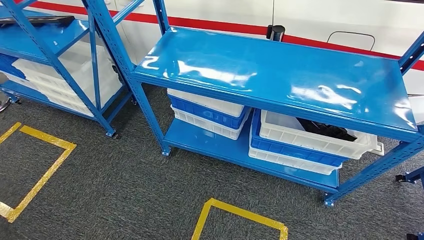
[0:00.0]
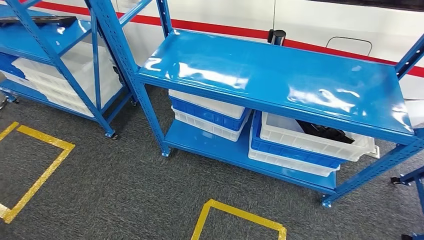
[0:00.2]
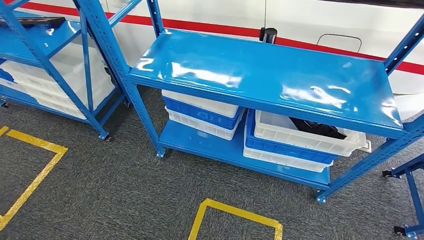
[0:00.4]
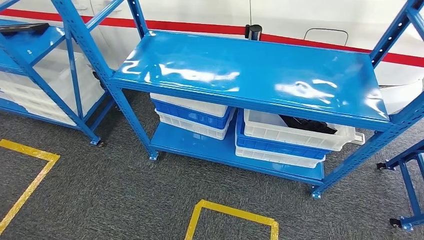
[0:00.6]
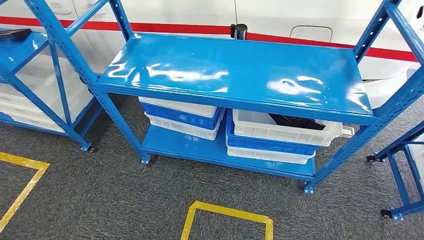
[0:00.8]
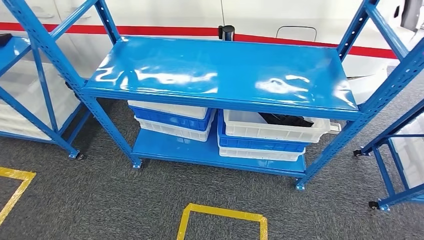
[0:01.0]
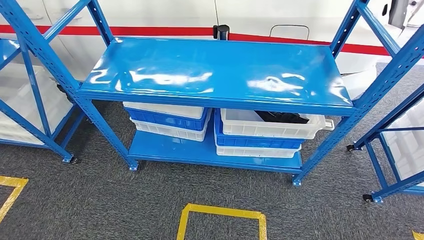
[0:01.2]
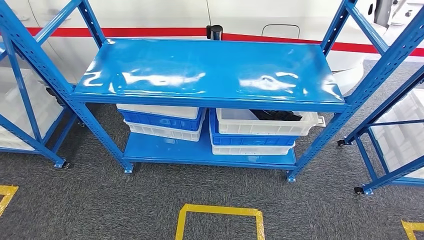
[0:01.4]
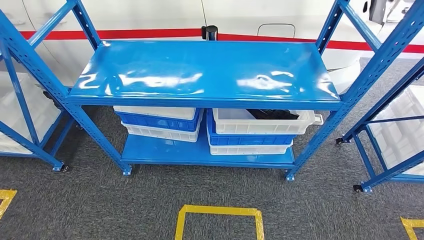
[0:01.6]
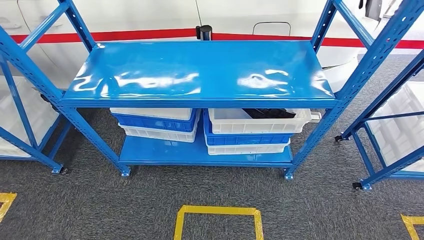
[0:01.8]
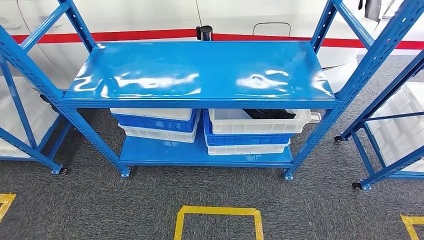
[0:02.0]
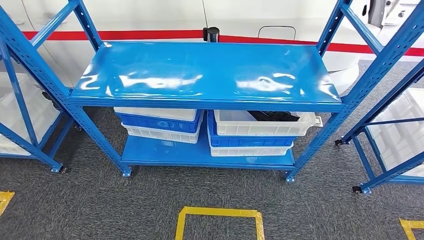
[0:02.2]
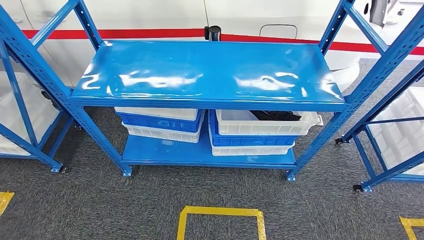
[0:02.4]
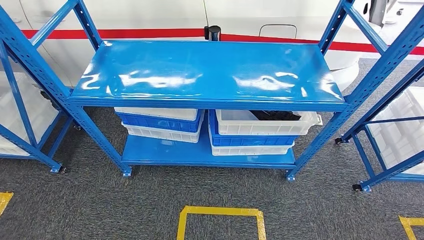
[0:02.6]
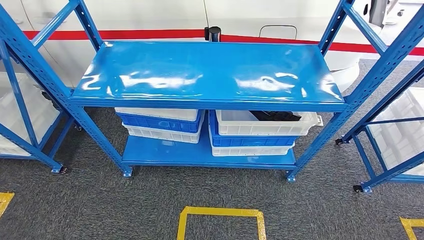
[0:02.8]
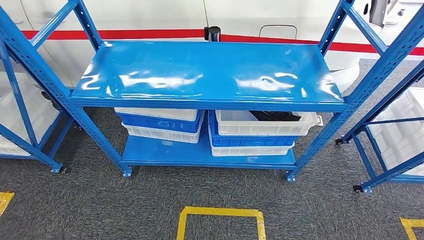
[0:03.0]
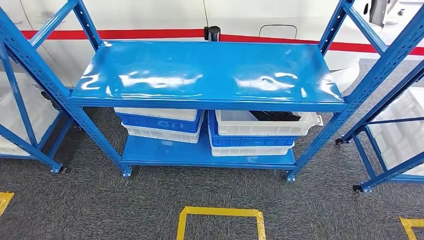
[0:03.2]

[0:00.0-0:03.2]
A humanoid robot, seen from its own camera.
Step, 0:00.0 to 0:03.0: Move to the initial position of the shelf.
0:01.6 to 0:03.2: The left hand shifts some 10 cm backward and to the left.
